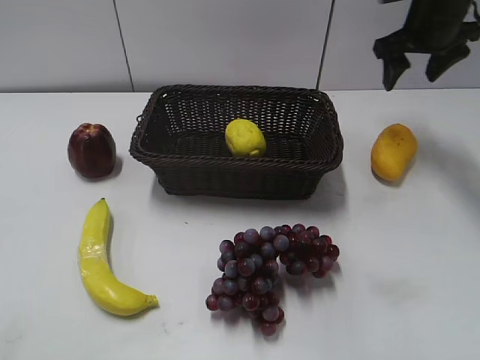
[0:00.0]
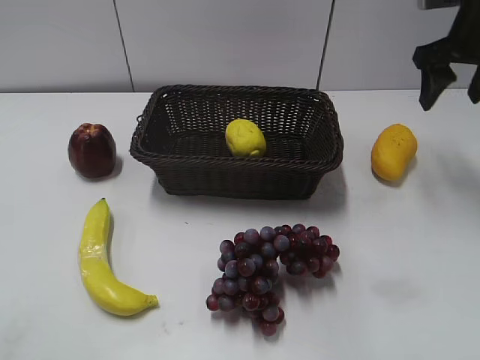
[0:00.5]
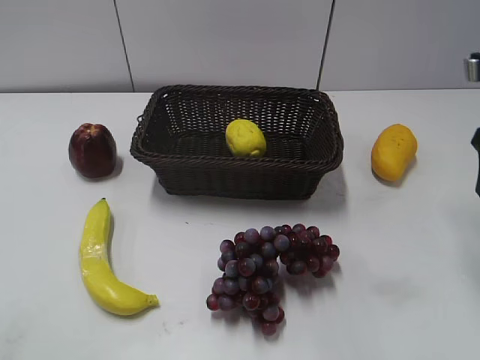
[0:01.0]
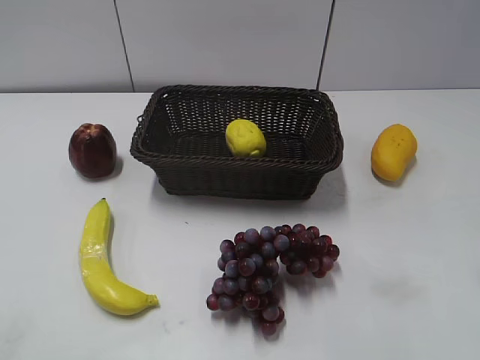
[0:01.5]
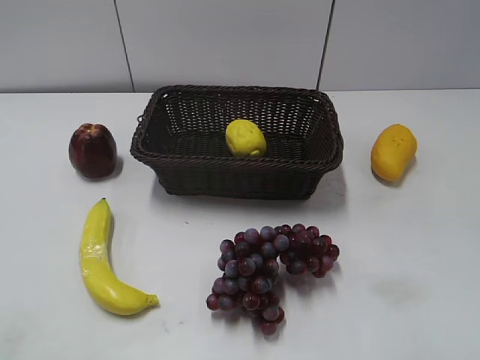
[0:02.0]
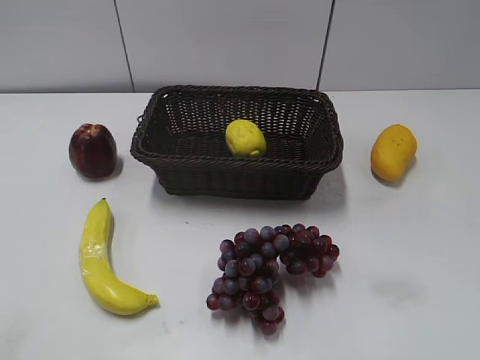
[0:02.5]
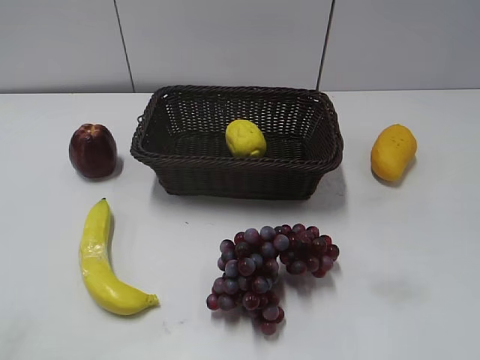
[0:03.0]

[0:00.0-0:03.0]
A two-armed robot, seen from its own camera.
0:00.0 to 0:01.5: The right gripper travels backward by some 30 cm.
